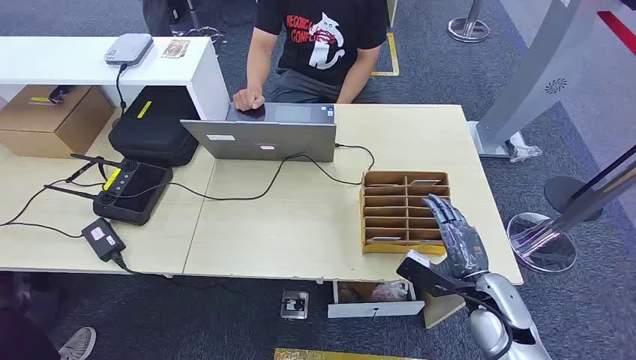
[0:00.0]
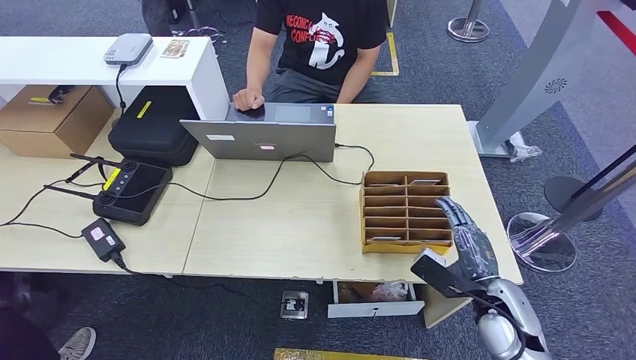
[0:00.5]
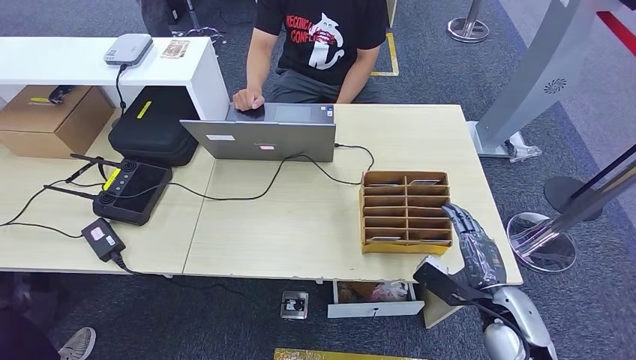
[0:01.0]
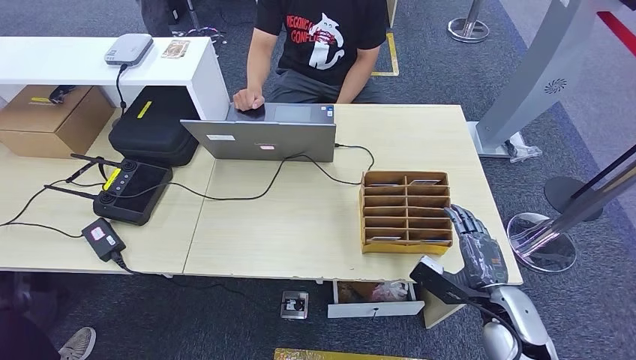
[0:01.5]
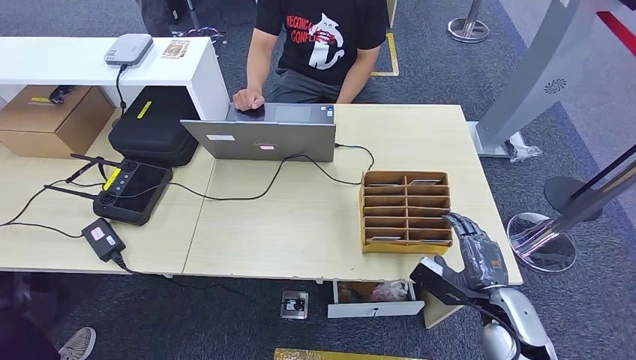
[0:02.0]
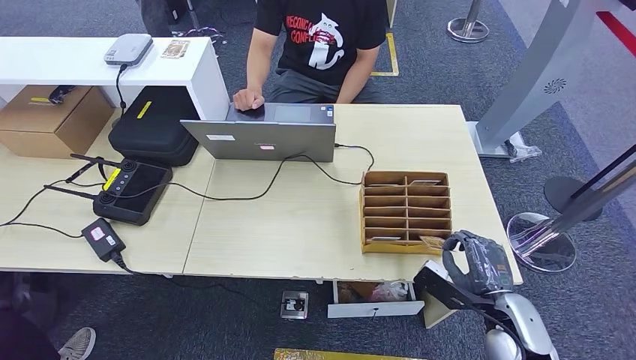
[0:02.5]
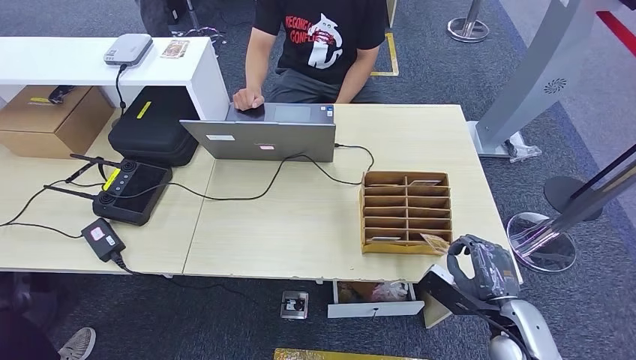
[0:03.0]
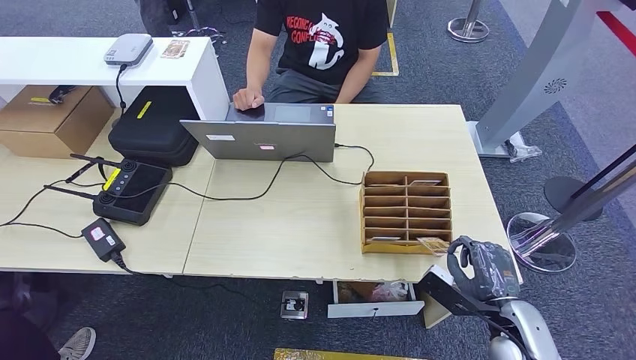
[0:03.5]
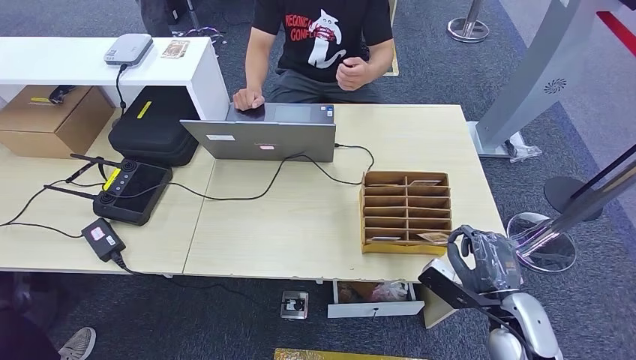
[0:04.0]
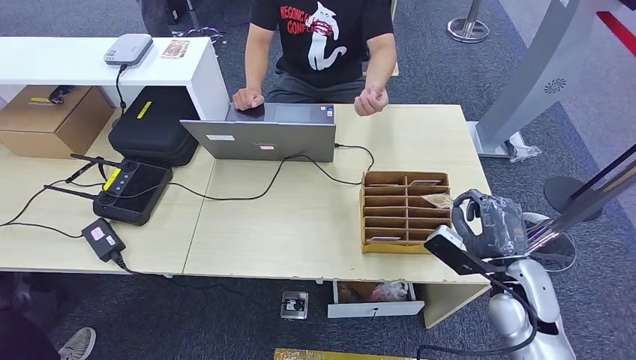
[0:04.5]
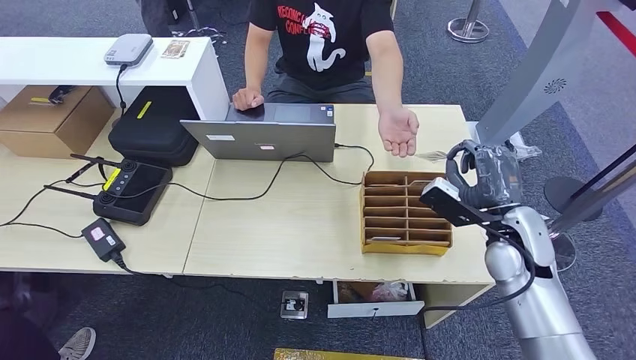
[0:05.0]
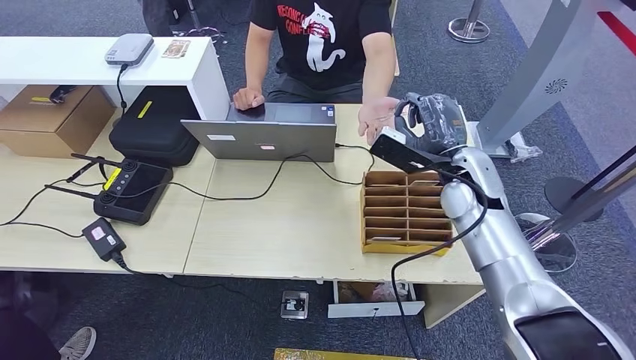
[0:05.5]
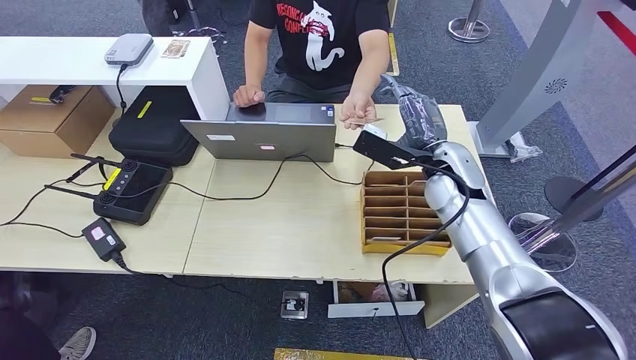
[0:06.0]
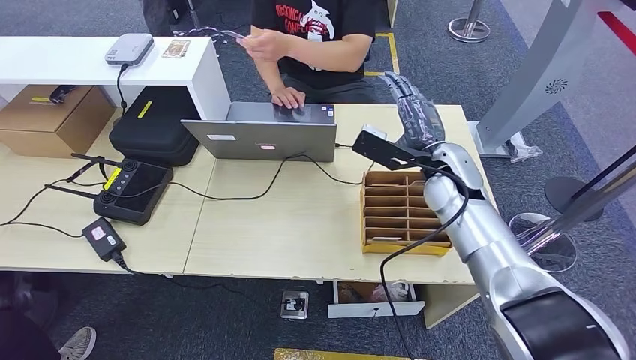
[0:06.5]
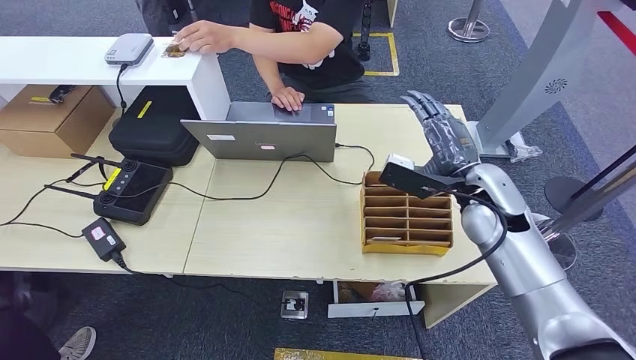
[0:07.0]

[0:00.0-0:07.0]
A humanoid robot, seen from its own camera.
Task of the whole recording: Pick up the card and hand it over to the target person.
Step, 0:00.0 to 0:04.5: Pick up the key card from the card box.
Step, 0:05.0 to 0:07.0: Hand the key card to the target.
0:02.0 to 0:03.5: The hands make only small movements.
0:03.5 to 0:05.0: The right hand shifts approximately 20 cm forward and upward.
0:05.0 to 0:07.0: The right hand moves about 5 cm.
